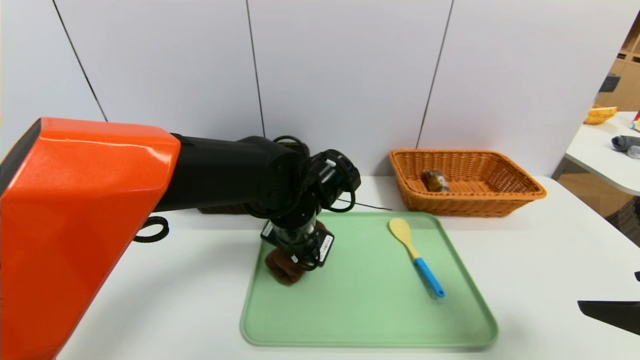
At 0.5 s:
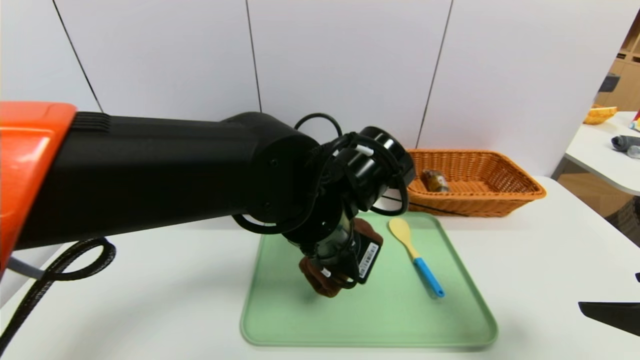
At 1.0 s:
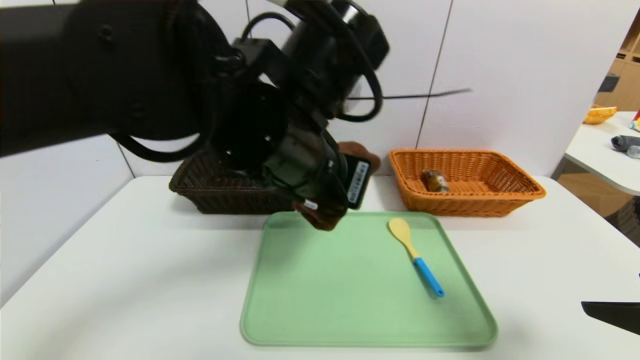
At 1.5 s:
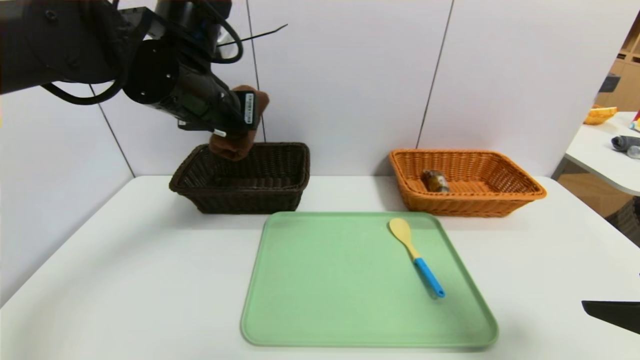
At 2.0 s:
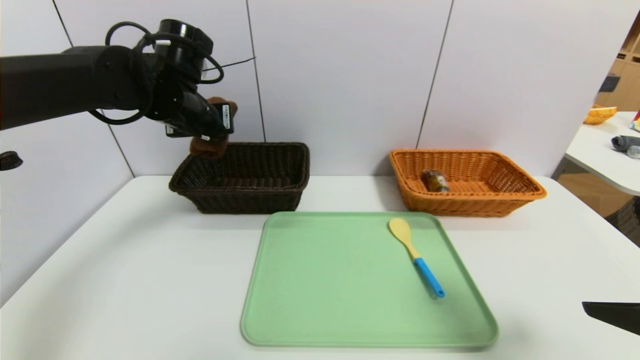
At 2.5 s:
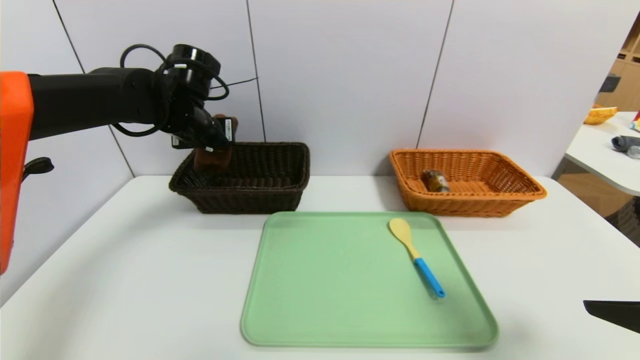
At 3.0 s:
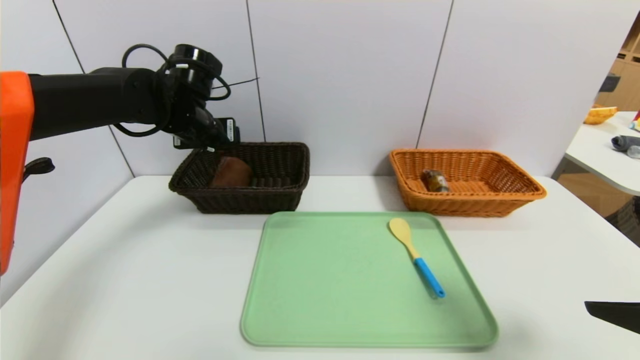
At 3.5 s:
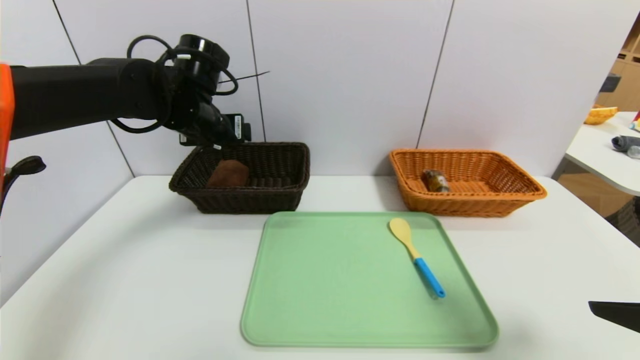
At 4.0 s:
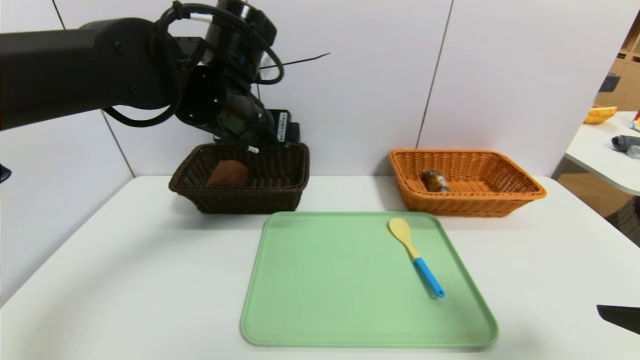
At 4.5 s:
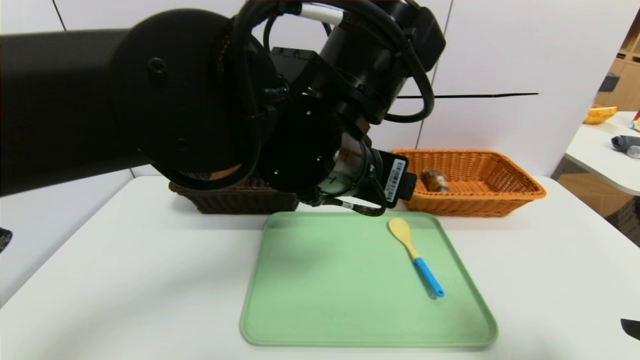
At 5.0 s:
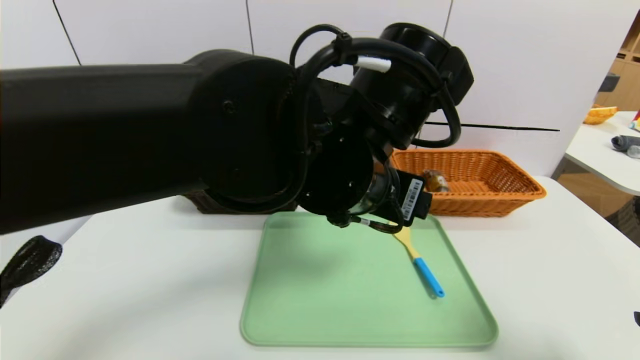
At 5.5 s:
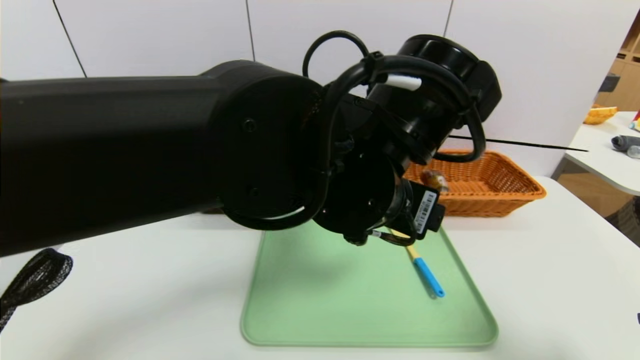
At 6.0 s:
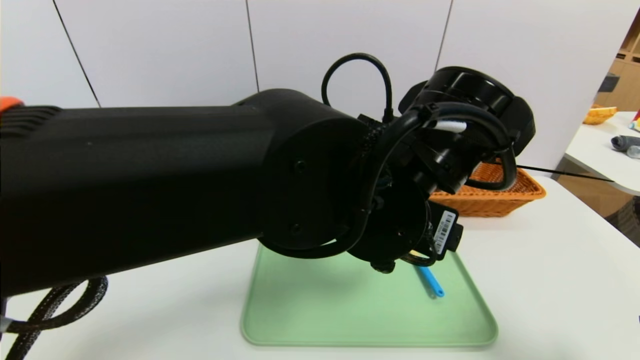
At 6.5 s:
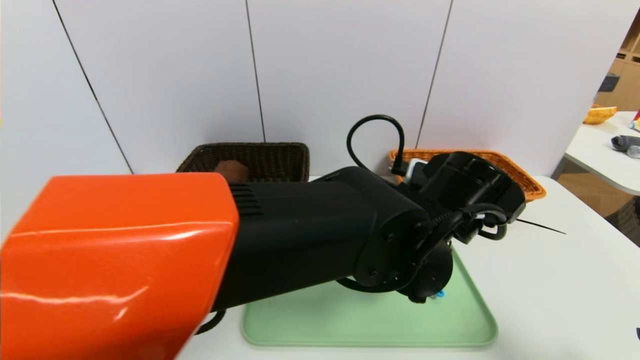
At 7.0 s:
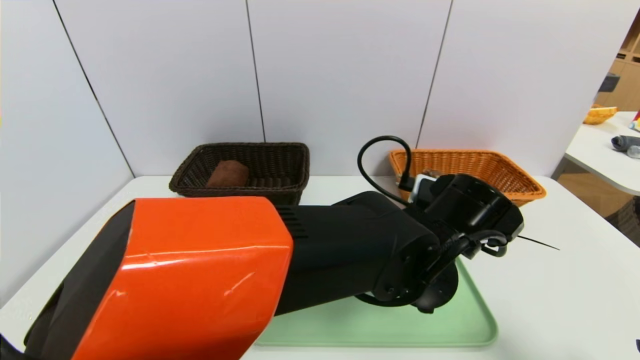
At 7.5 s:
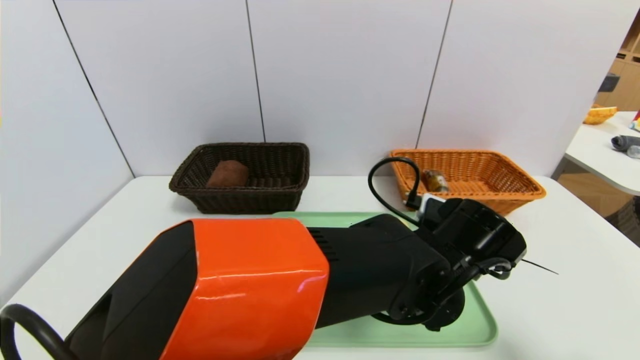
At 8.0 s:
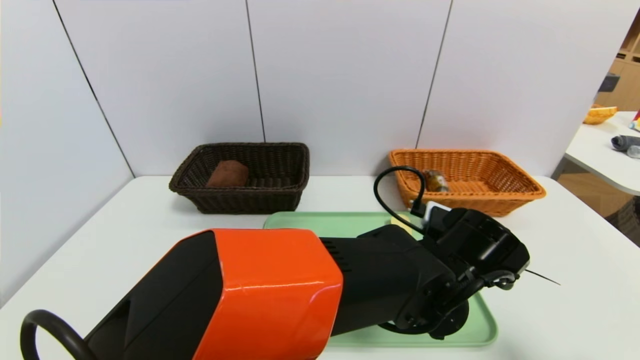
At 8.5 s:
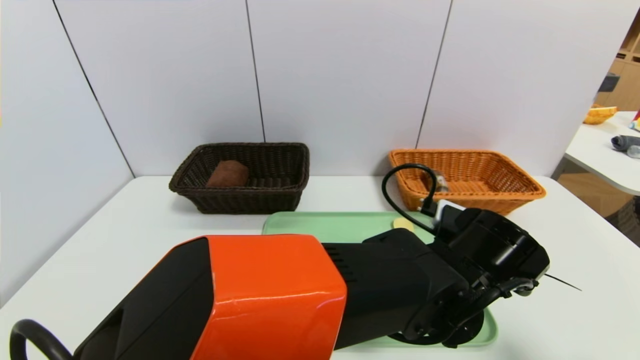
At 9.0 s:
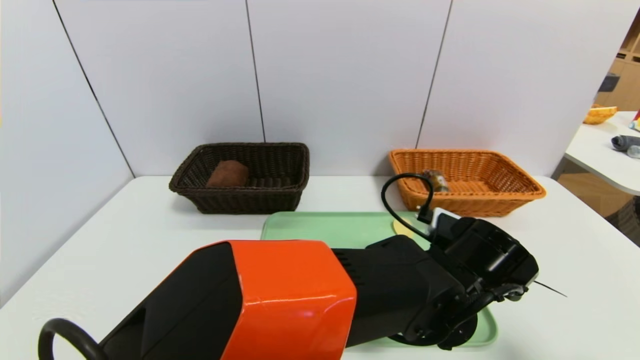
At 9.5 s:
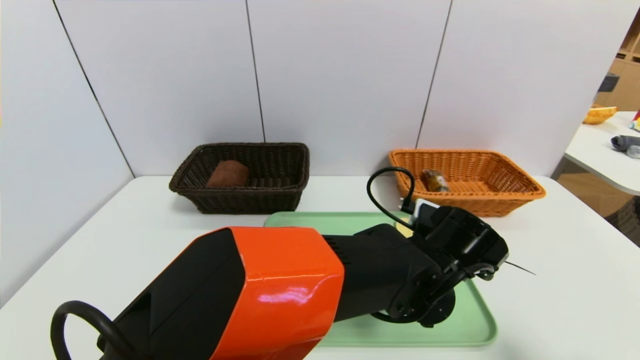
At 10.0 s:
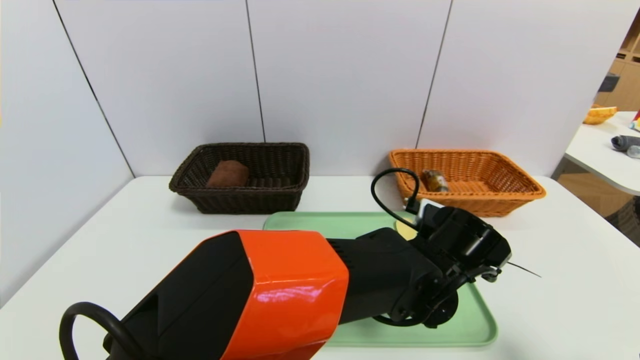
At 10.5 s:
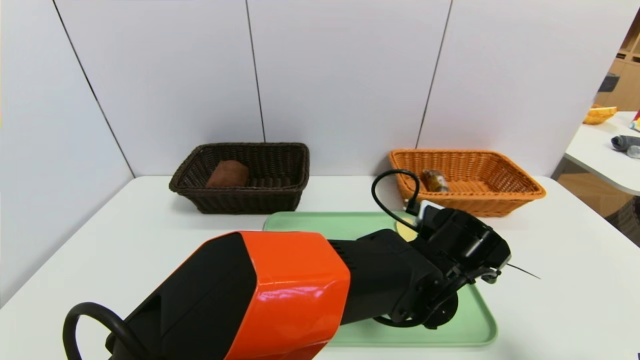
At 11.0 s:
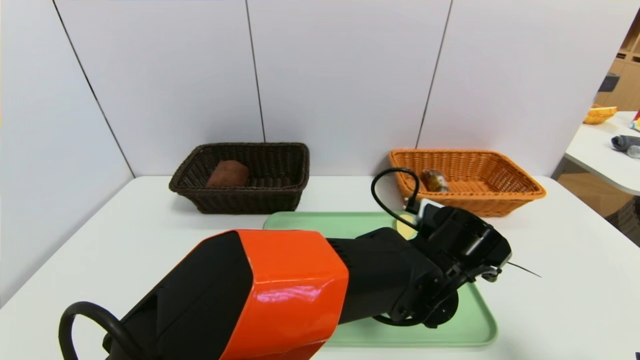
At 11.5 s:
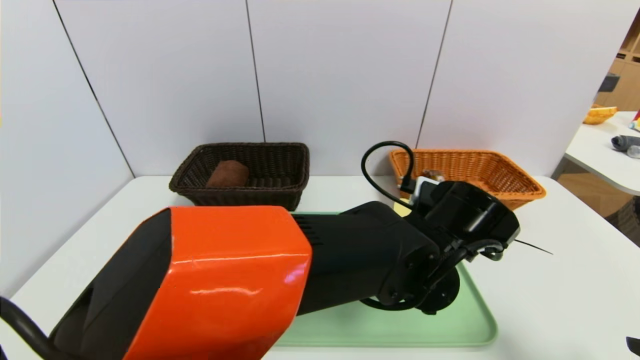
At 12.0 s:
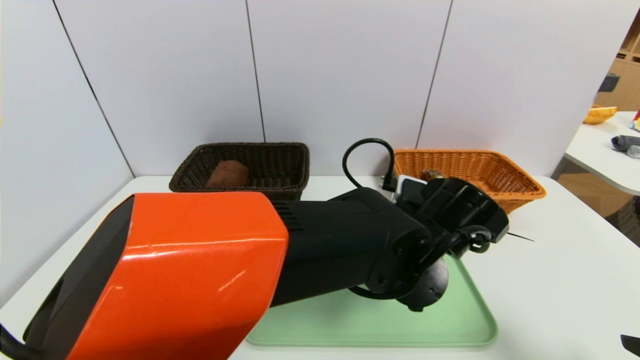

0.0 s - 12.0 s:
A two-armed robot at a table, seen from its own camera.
Task of the whole recording: place the food in the right basket with the right gripper, and place the non food items in the left basket with the left gripper.
Step, 0.0 s - 3.0 s: Grasp the brown towel and put it in the left basket.
0.0 s - 2.0 s: The left gripper goes about 25 cm to the left, upward and forward.
2.0 s - 4.0 s: The left gripper heads to the right and backward, covering about 10 cm, and opens up.
4.0 s - 6.0 s: The left gripper shifts approximately 20 cm to the right and backward.
6.0 s - 8.0 s: The left gripper travels downward and to the right by about 15 cm.
8.0 s - 10.0 s: The grippers make only small movements.
10.0 s - 12.0 s: The left gripper is displaced upward by approximately 5 cm, and closes its fingers.

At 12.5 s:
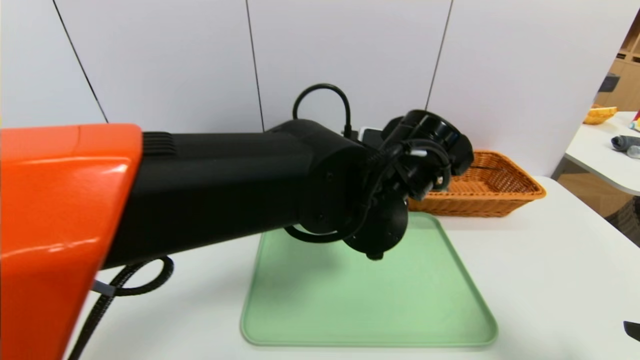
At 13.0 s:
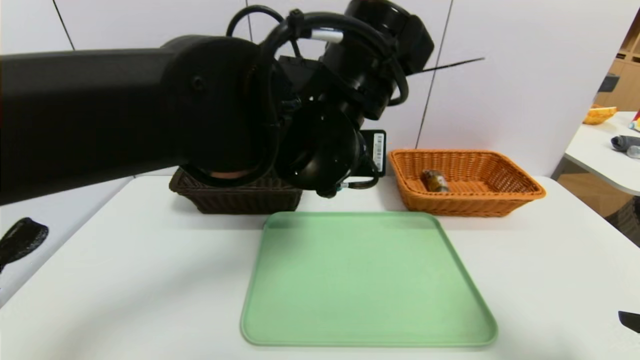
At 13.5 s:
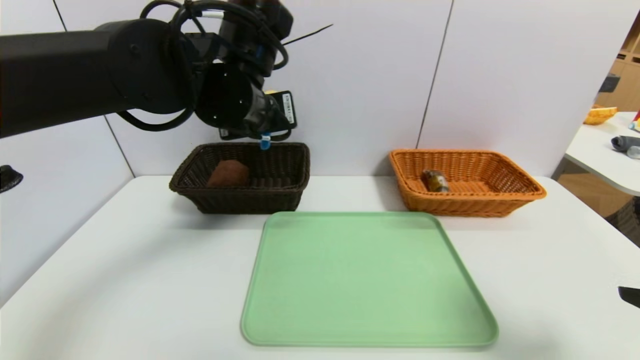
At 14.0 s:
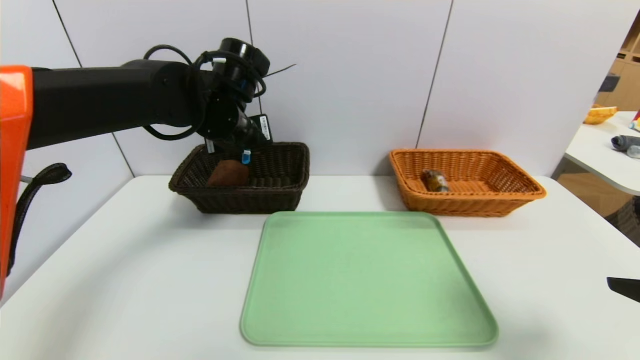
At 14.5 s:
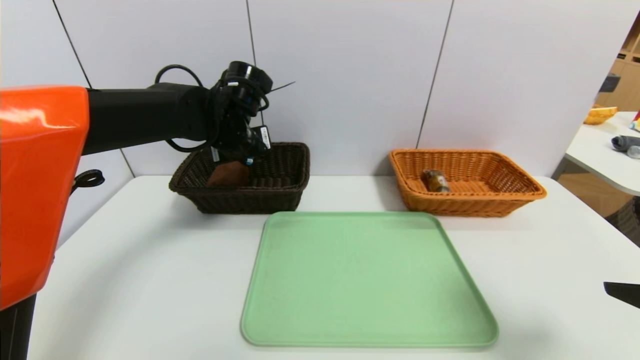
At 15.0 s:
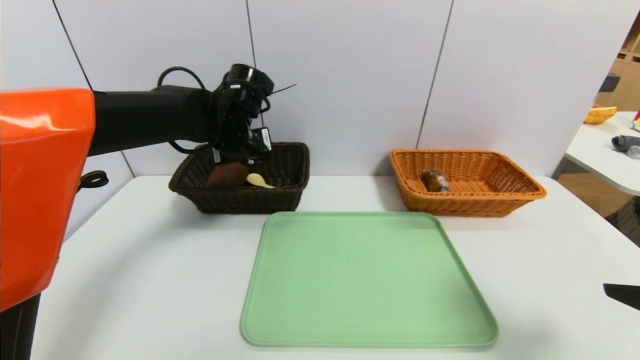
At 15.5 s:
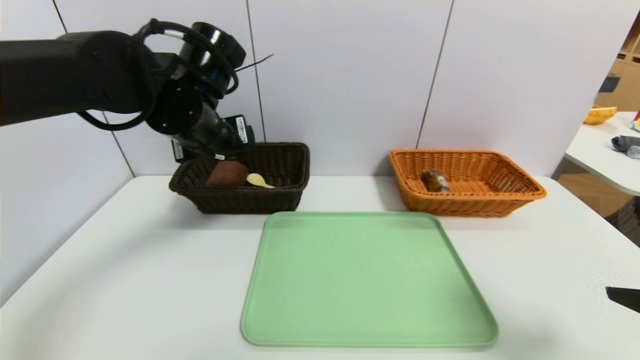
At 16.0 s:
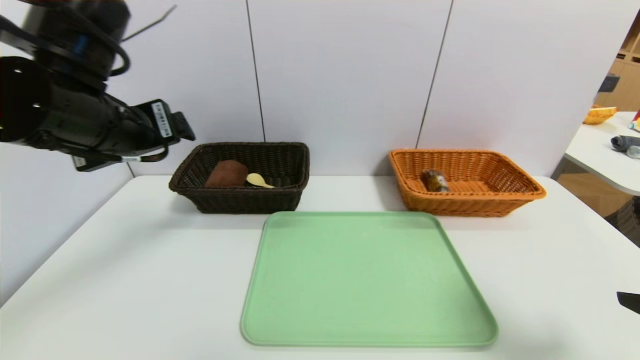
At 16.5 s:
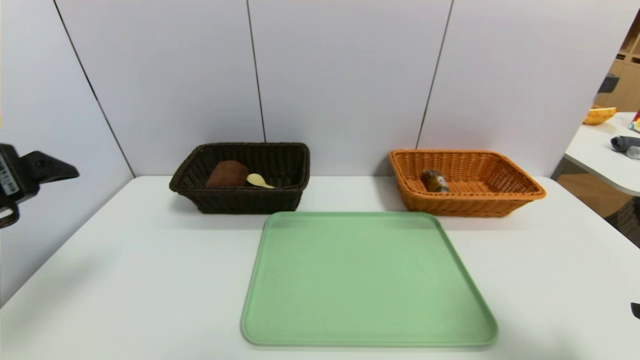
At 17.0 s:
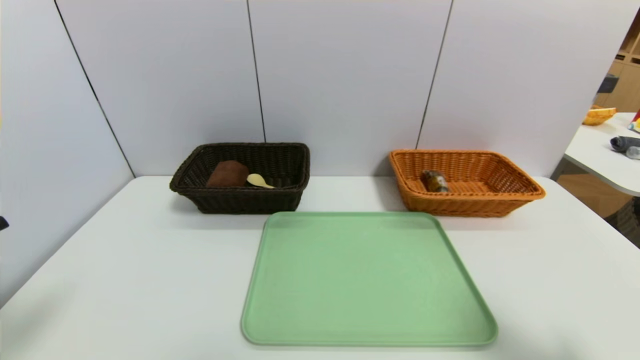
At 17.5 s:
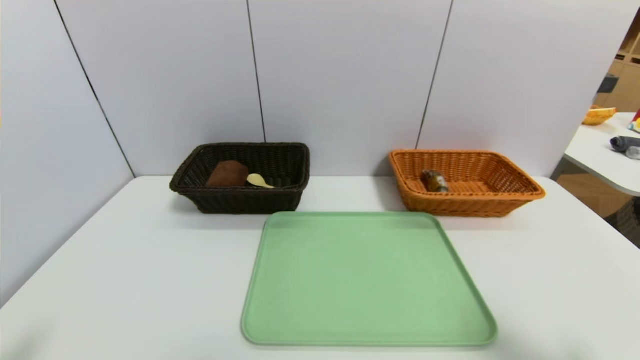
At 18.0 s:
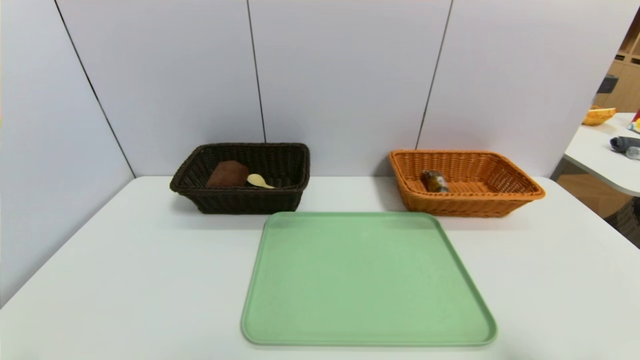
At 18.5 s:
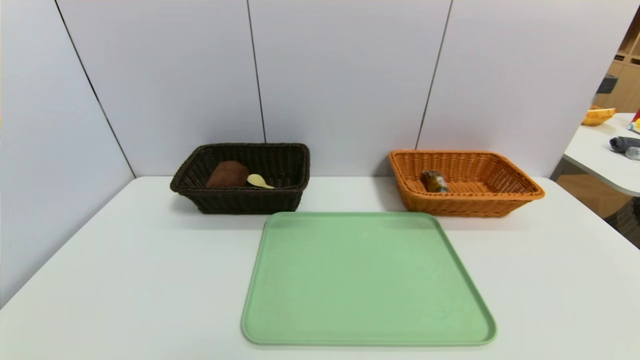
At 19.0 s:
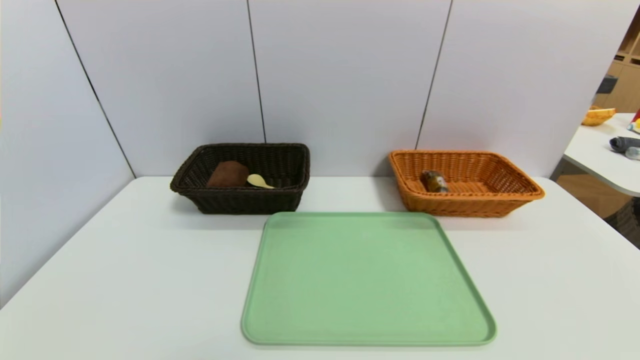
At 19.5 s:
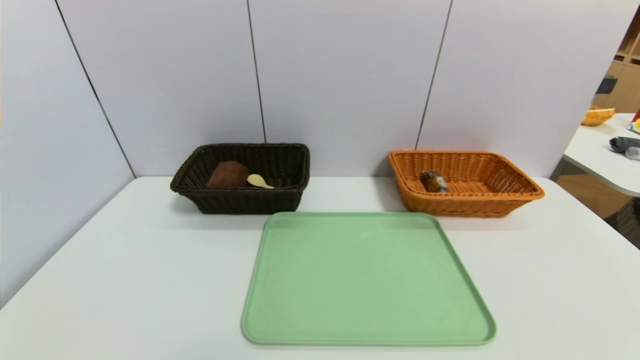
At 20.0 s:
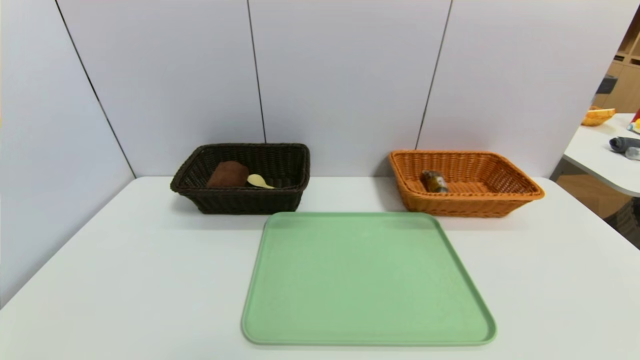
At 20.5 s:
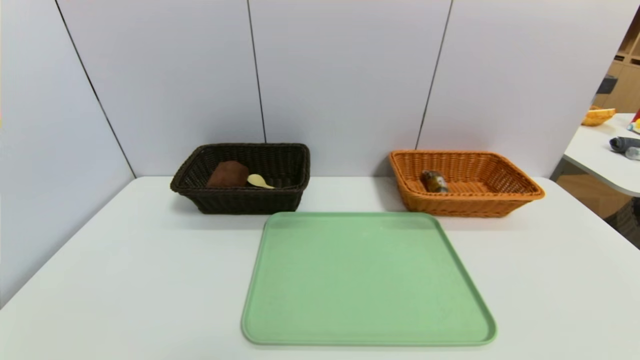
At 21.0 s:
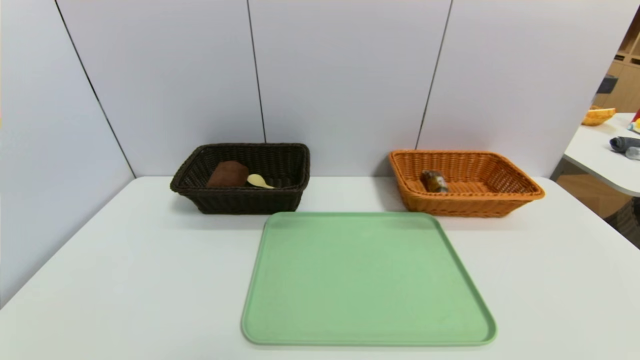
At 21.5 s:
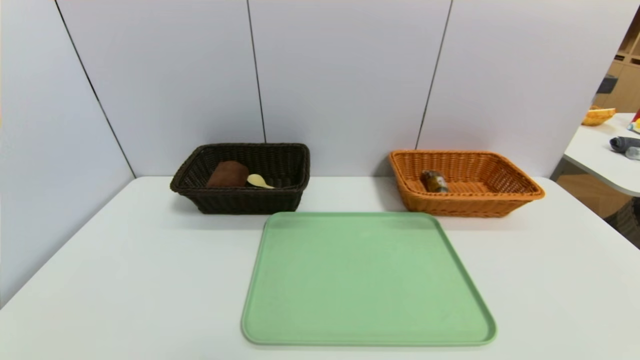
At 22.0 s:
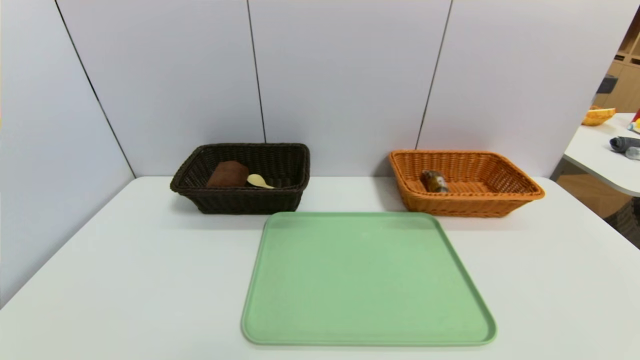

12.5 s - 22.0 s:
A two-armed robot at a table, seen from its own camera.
Task of the whole recording: place the food in the right basket with the right gripper, and place the non food items in the left basket with the left gripper.
Step, 12.5 s - 15.5 s: Grasp the spoon and put it in the left basket.
12.5 s - 14.5 s: The left gripper moves to the left and forward, approximately 25 cm.
14.5 s - 16.5 s: The left gripper goes some 30 cm backward and to the left, and opens its fingers.
16.5 s - 18.0 s: The left gripper heads backward and downward, covering approximately 20 cm.
